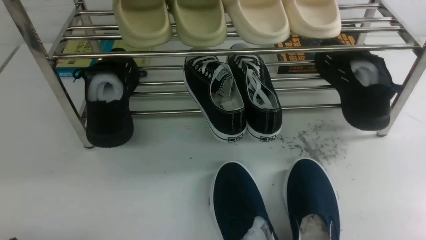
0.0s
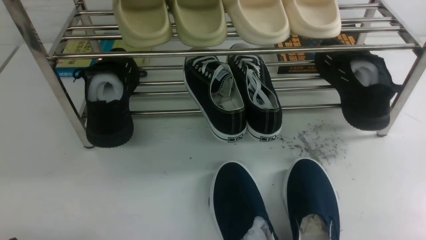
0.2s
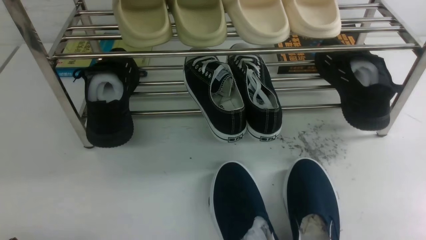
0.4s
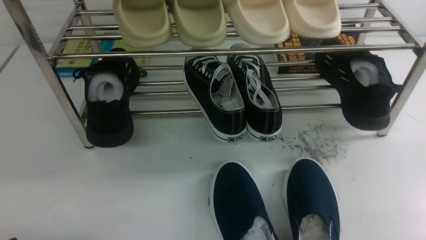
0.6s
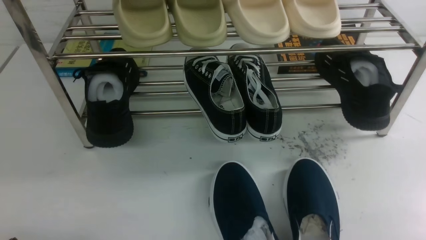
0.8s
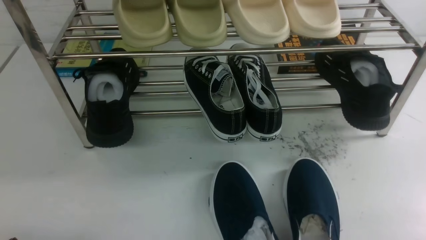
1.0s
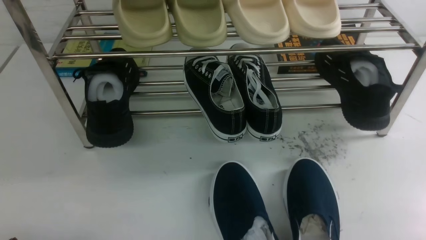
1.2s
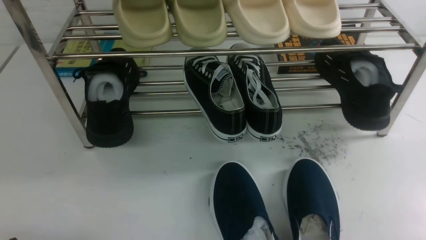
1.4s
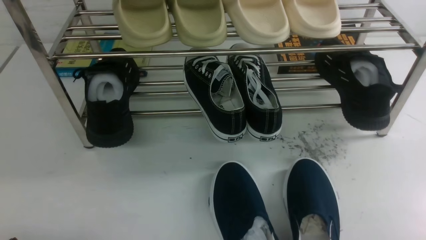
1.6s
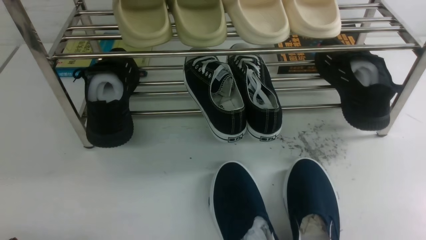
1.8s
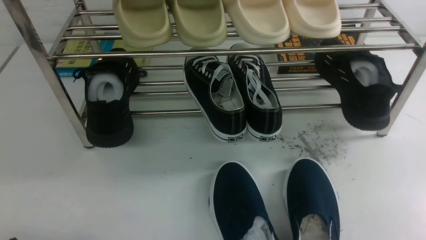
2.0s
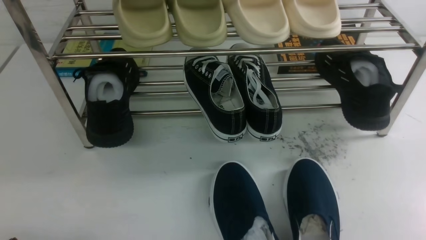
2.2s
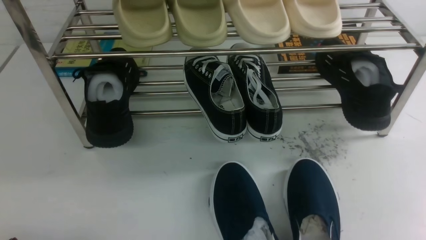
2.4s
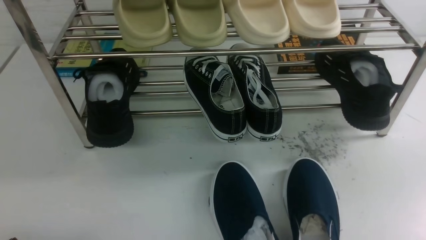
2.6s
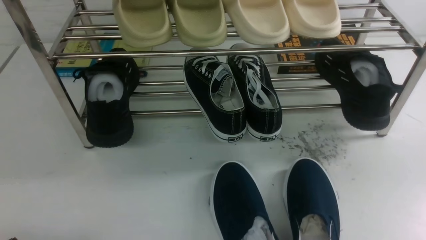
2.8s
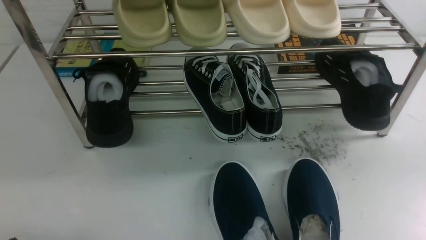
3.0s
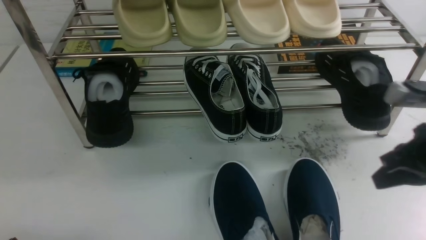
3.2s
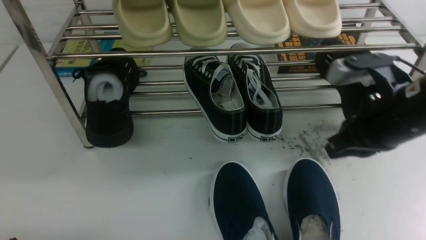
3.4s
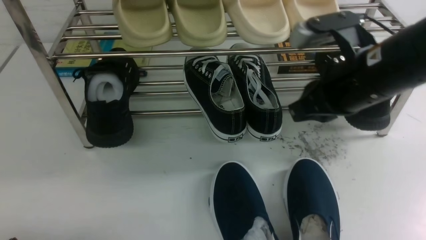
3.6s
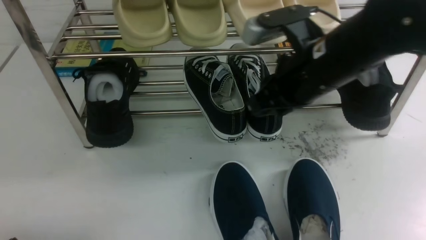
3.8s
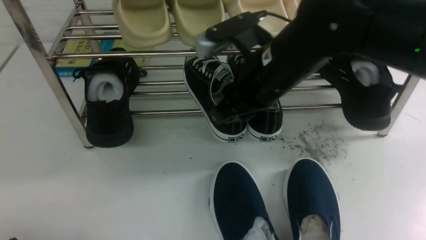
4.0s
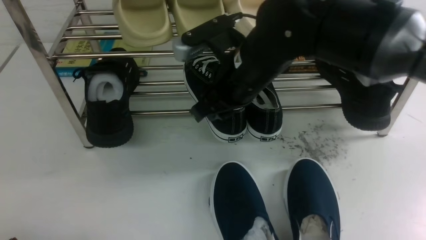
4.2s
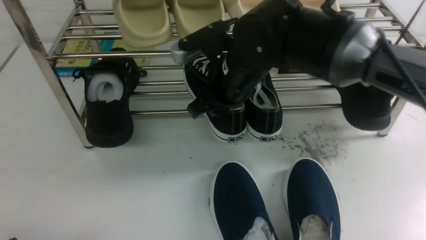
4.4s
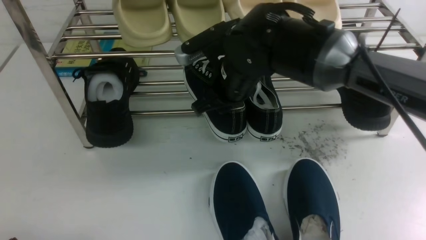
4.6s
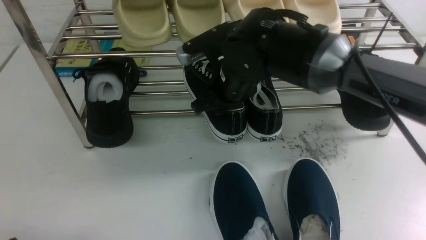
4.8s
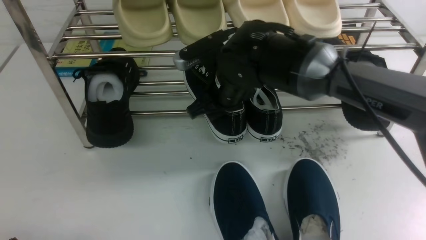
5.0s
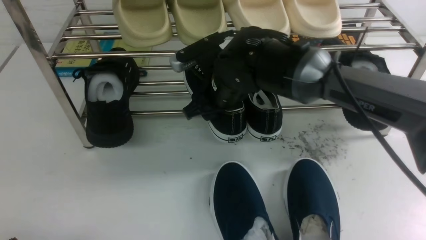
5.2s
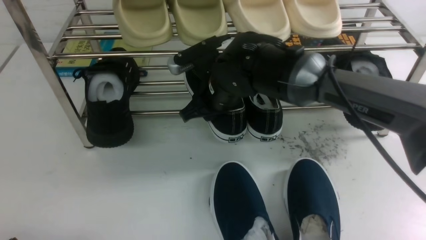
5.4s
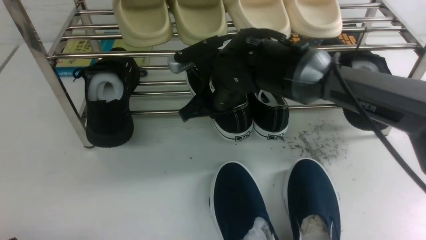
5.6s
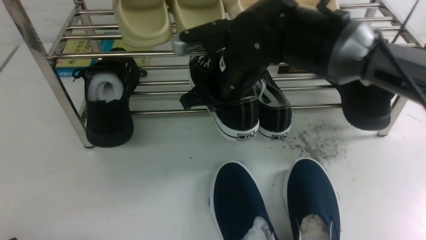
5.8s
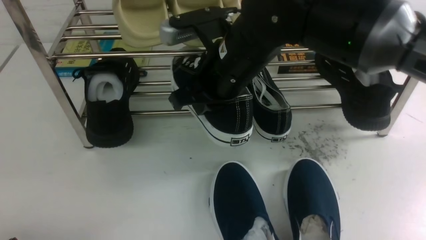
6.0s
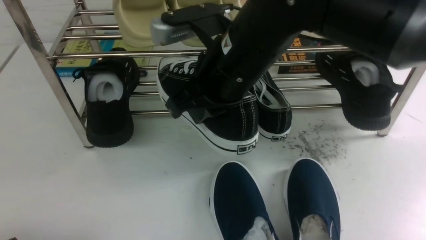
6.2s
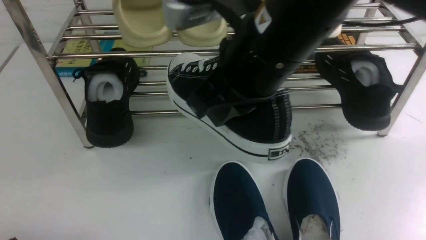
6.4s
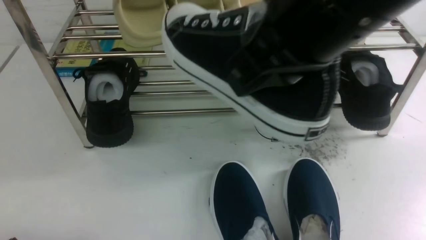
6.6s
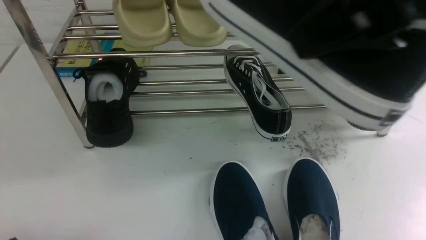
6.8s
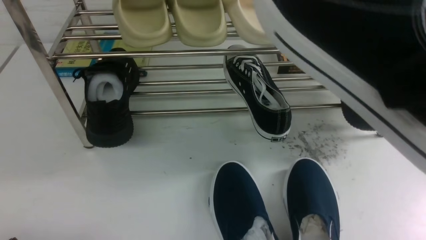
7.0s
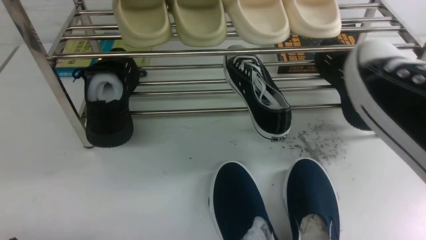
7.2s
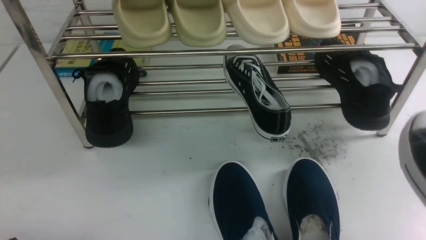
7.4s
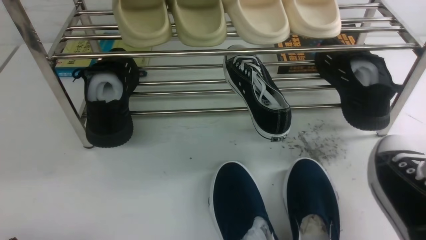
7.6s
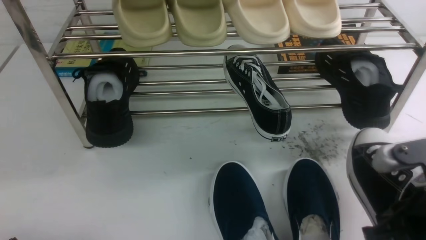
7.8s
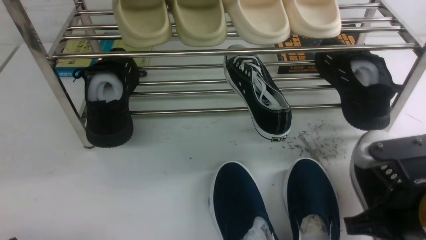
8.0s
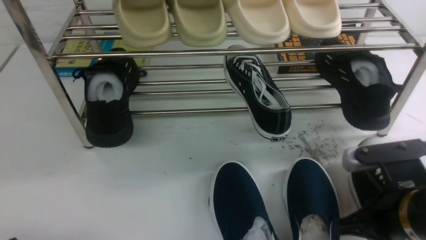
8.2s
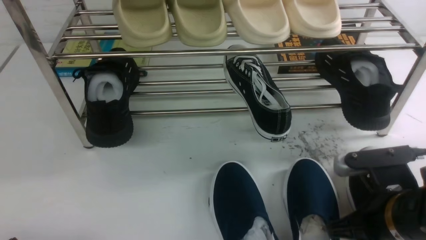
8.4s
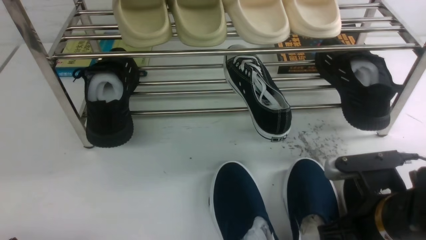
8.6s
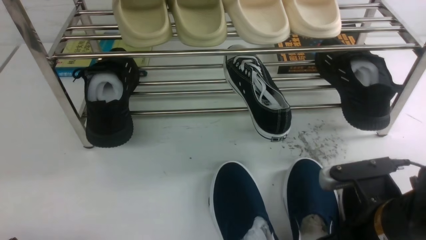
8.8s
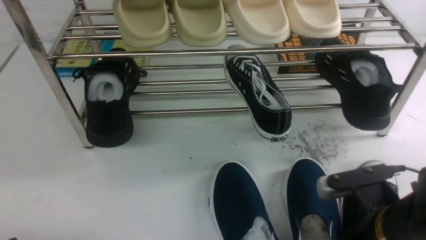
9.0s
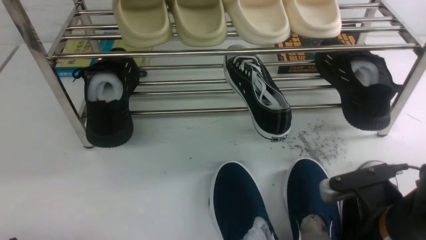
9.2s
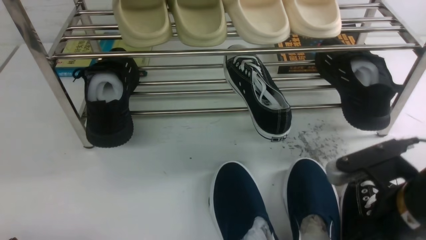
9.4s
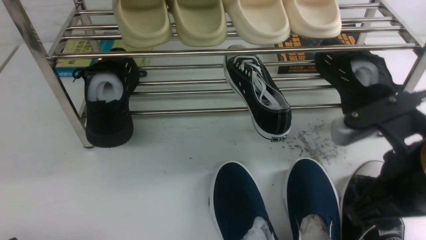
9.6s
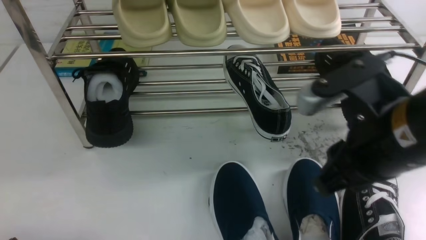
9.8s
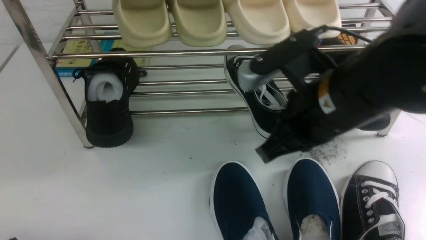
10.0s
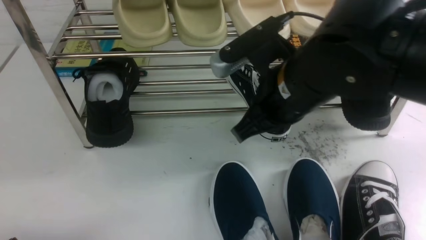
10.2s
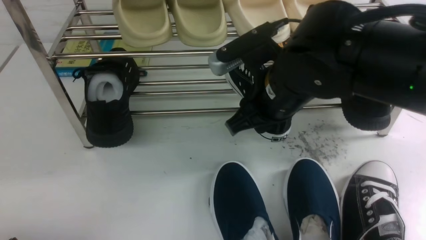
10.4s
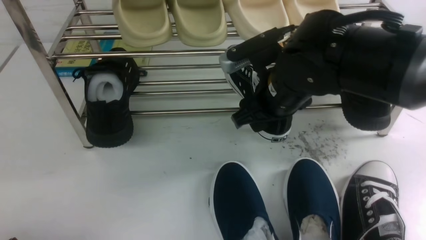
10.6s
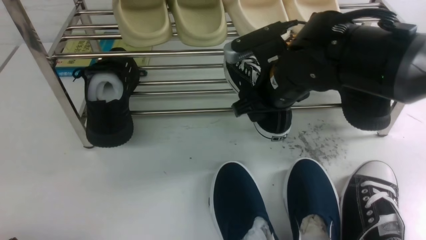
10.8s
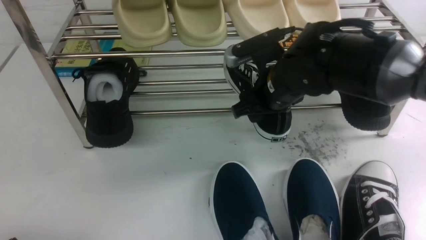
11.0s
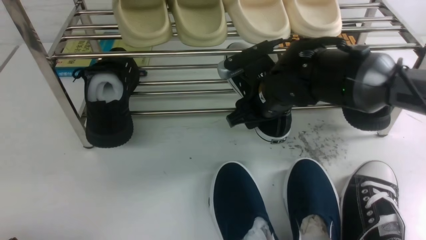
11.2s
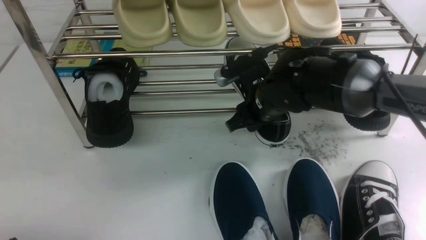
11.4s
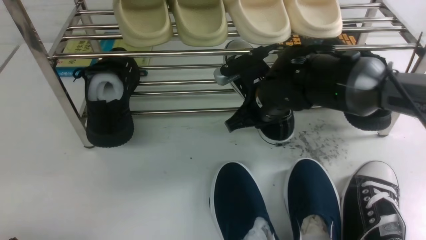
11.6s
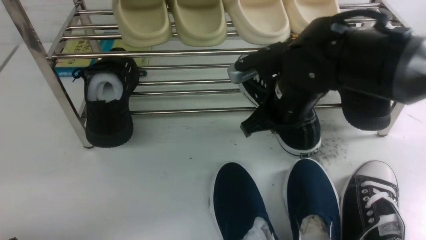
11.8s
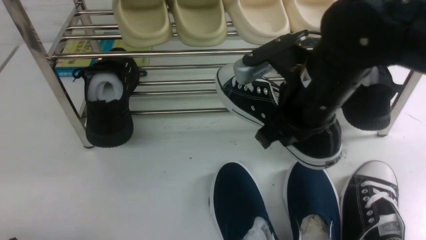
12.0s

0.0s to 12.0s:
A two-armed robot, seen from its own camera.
Step, 0.0s to 5.8s: use the right arm to clamp a shoe in the middle of the shoe rack.
Step, 6.0s to 9.4s: use the right arm to take out the clamped shoe from the shoe rack and put it down.
Step, 9.6s to 11.8s: use the right arm to clamp a shoe in the middle of the shoe rack.
3.0s to 4.4s: The right gripper shifts about 30 cm to the left and forward, and opens up.
4.4s to 6.0s: The right gripper ends up roughly 5 cm from where it was, and closes up.
6.0s to 7.6s: The right gripper moves to the right and backward, some 30 cm.
7.6s to 9.0s: The right gripper is displaced downward and to the left by roughly 10 cm, and opens its fingers.
9.0s to 10.4s: The right gripper travels forward, upward and to the left by about 20 cm, and closes, then opens again.
10.4s to 12.0s: The right gripper travels downward and back again, approximately 10 cm each way, and closes.

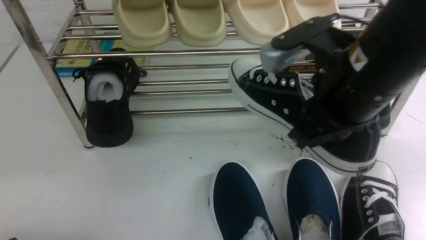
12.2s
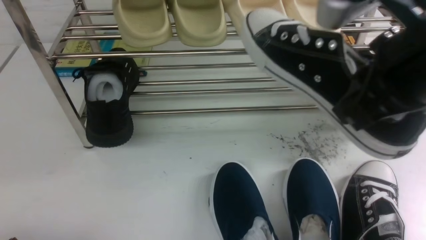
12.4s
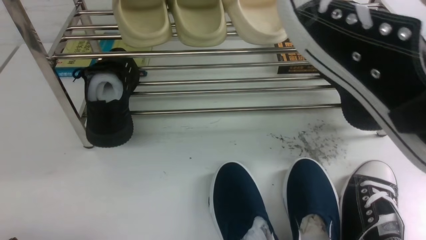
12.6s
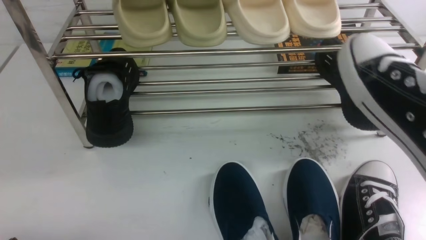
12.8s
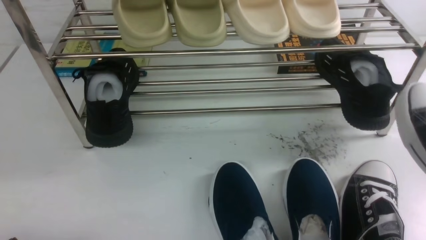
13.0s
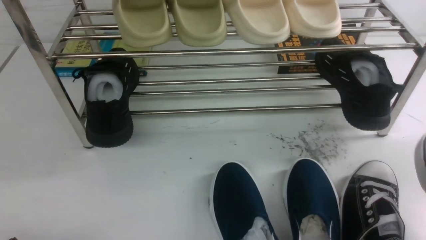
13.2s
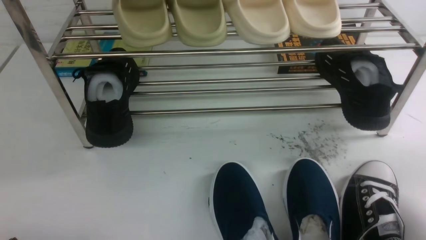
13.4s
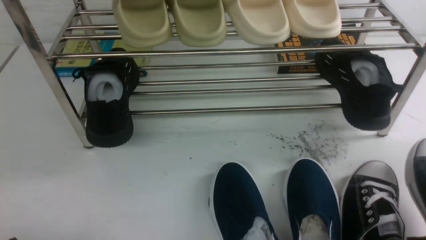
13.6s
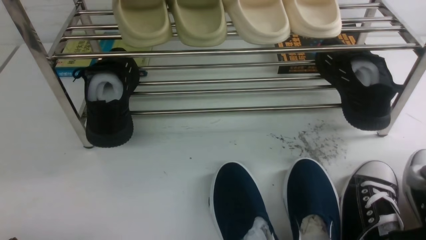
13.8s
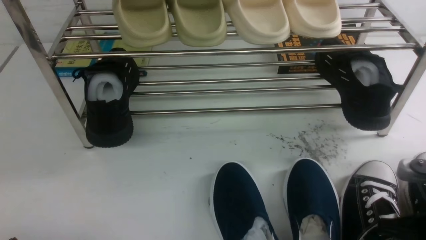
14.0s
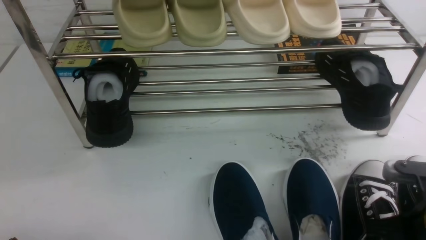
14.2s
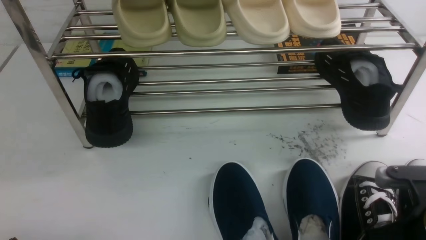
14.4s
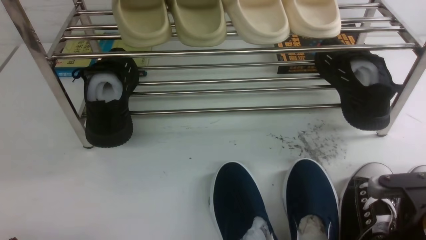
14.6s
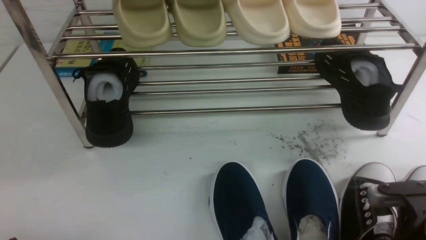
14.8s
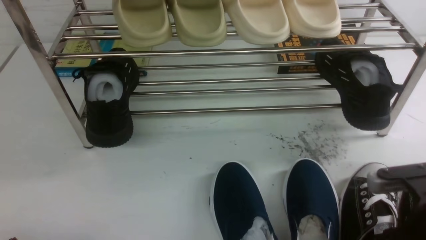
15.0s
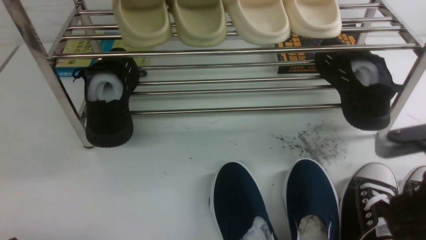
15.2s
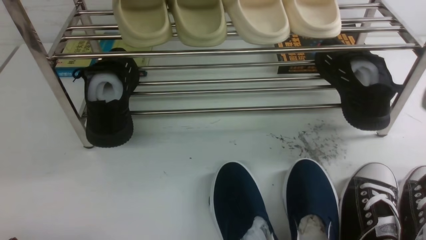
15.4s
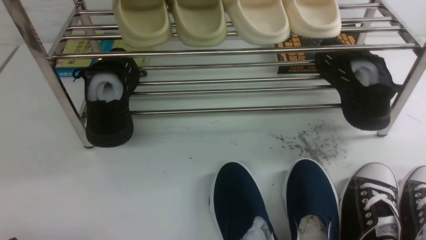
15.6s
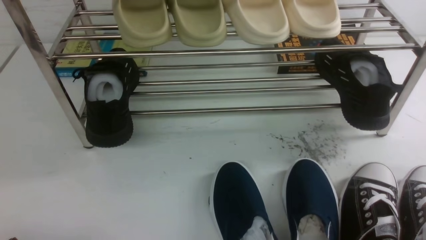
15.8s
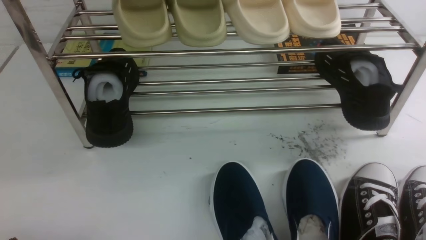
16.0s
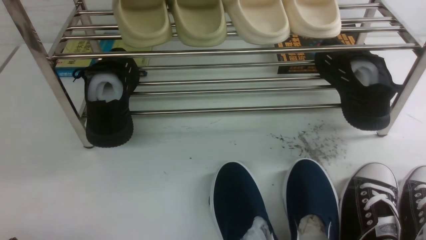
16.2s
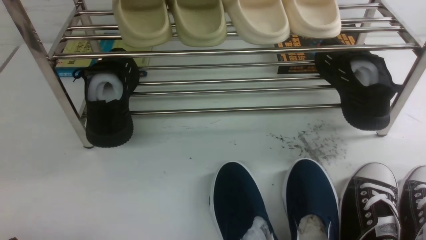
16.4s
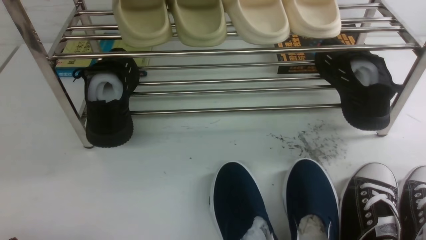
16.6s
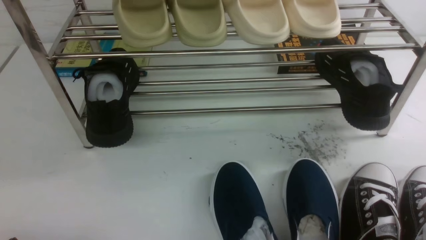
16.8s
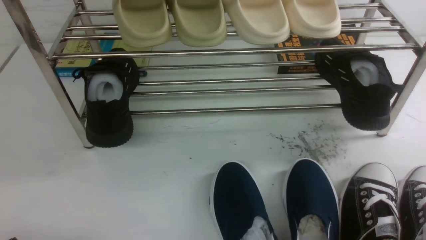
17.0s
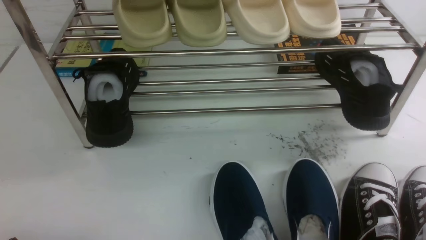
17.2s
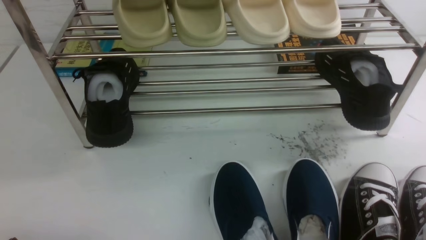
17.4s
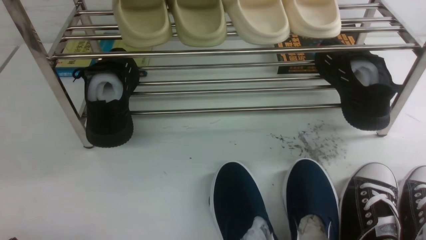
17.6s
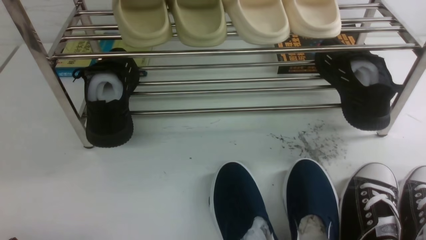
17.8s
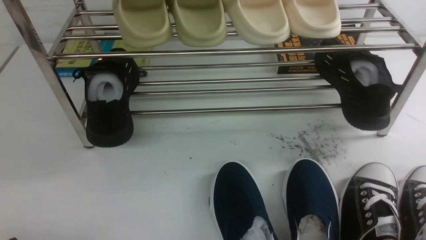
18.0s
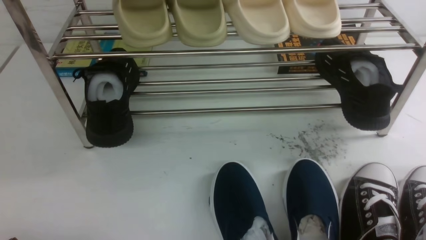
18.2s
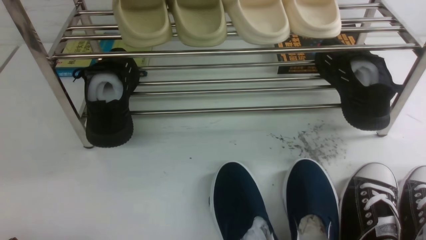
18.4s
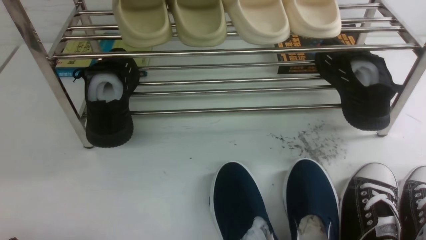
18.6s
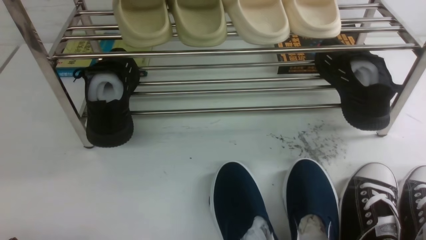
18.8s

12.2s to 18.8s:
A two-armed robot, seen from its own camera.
Step, 12.2s to 15.2s: use the right arm to take out the clamped shoe from the shoe rack and put it down.
12.2s to 13.8s: The right gripper is displaced downward, to the right and backward by some 20 cm.
13.8s to 15.4s: The right gripper moves upward, some 10 cm, and opens its fingers.
